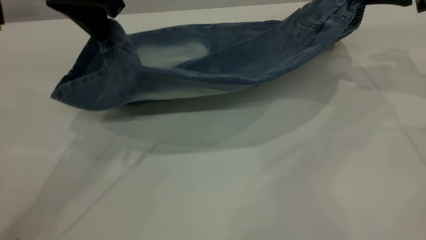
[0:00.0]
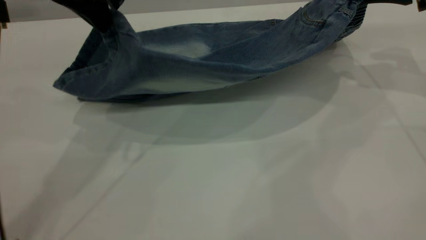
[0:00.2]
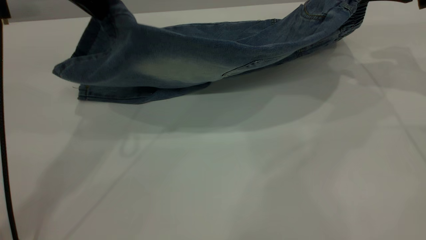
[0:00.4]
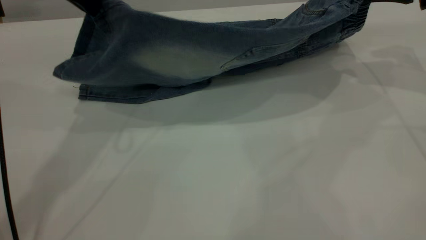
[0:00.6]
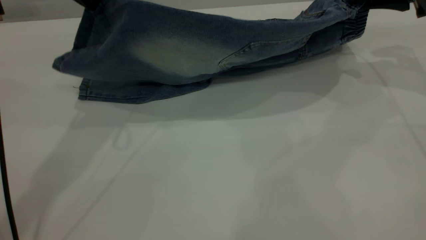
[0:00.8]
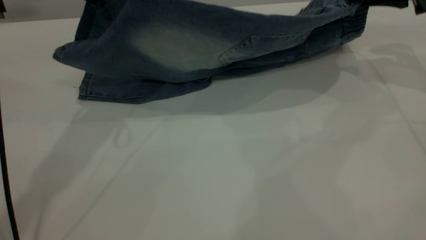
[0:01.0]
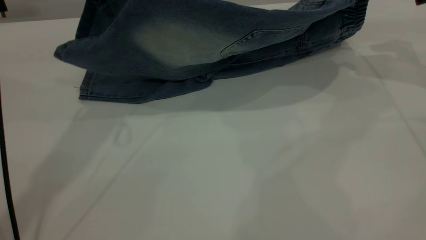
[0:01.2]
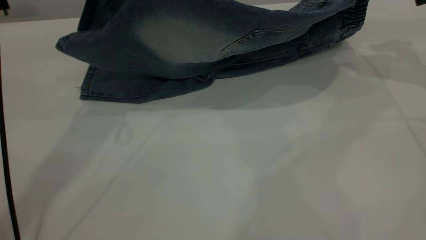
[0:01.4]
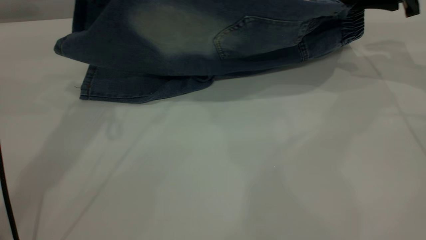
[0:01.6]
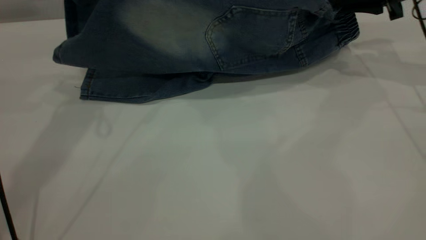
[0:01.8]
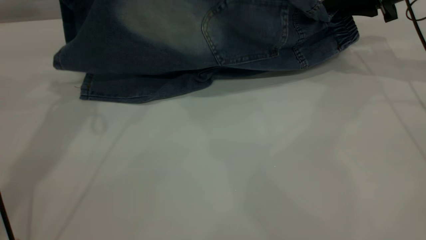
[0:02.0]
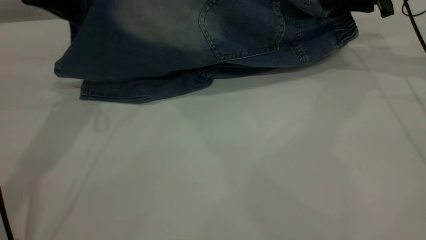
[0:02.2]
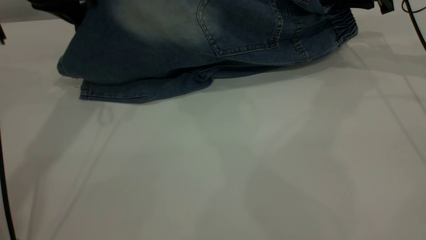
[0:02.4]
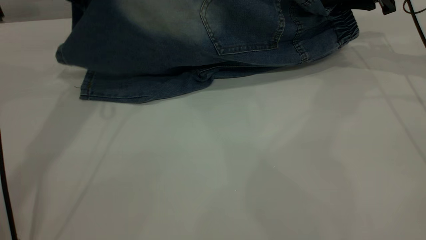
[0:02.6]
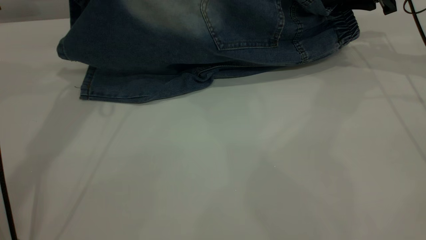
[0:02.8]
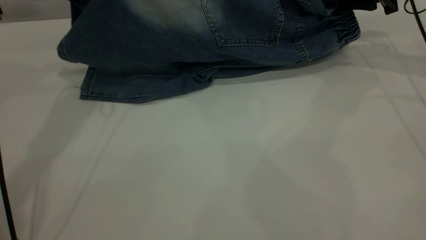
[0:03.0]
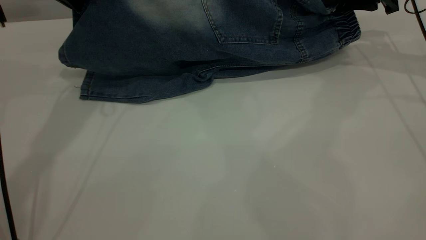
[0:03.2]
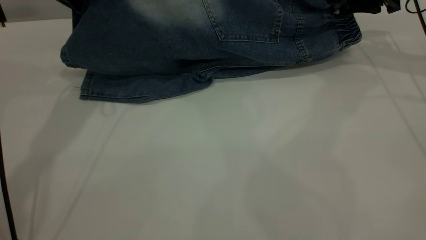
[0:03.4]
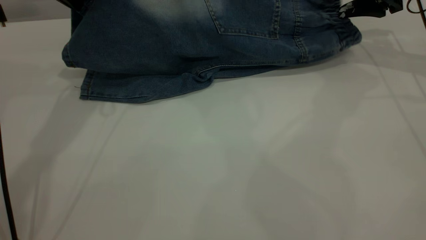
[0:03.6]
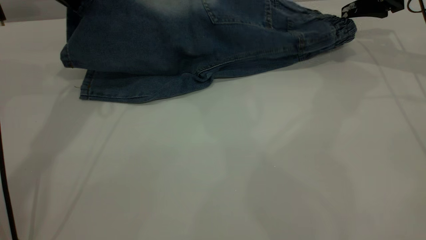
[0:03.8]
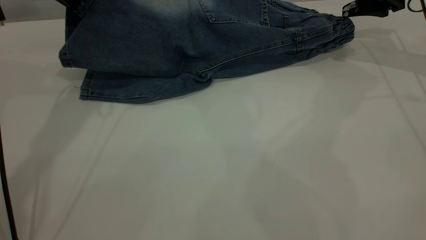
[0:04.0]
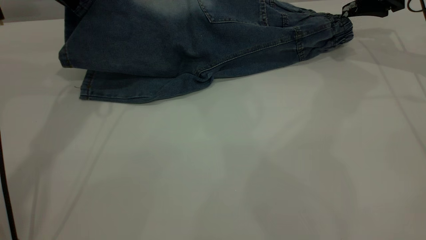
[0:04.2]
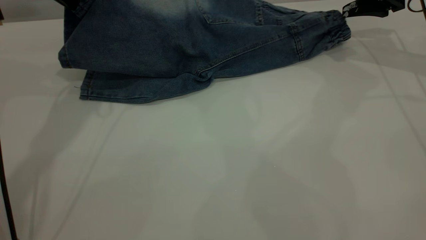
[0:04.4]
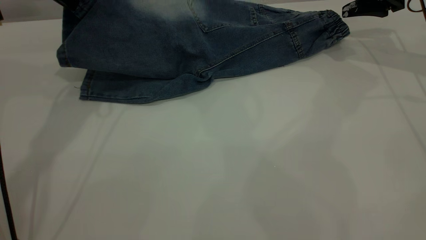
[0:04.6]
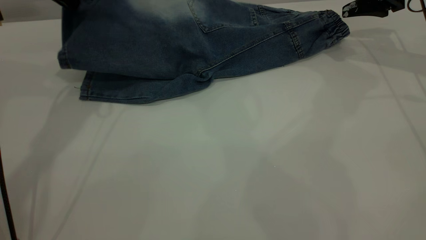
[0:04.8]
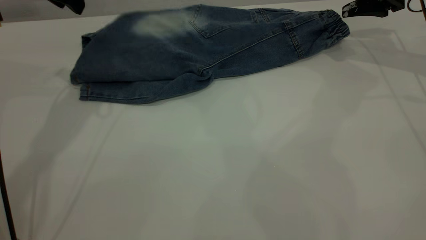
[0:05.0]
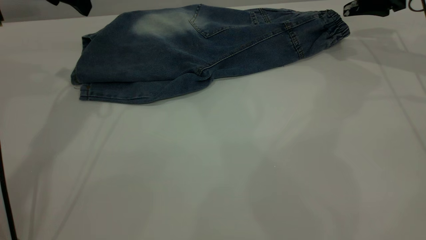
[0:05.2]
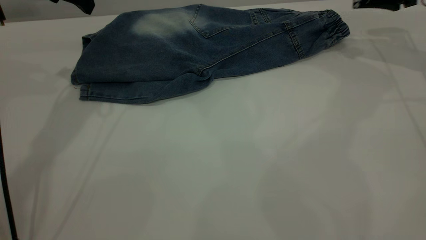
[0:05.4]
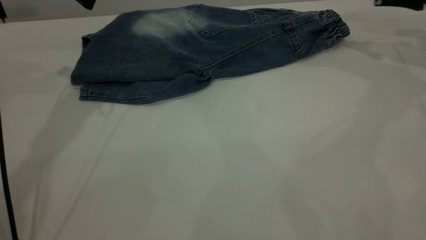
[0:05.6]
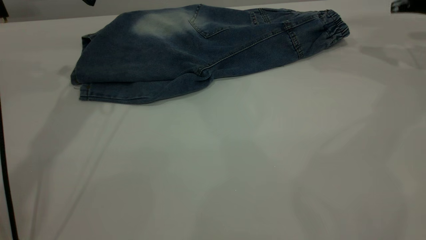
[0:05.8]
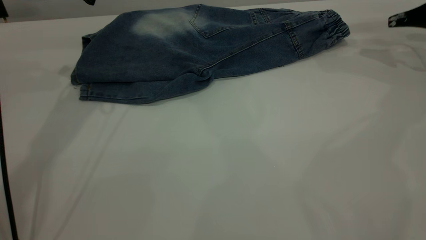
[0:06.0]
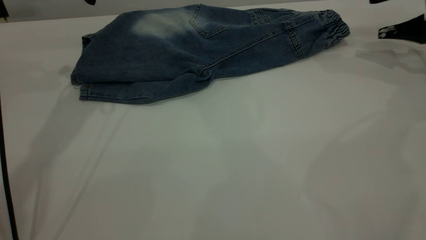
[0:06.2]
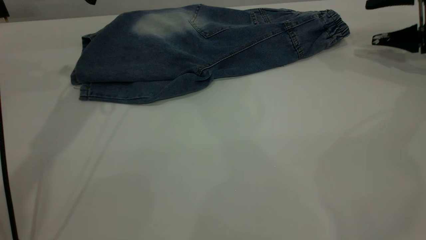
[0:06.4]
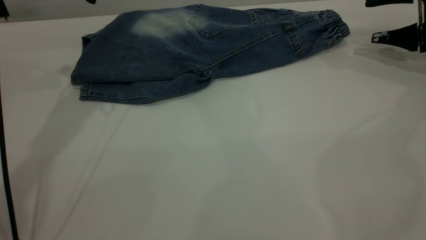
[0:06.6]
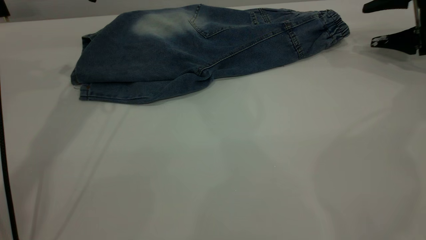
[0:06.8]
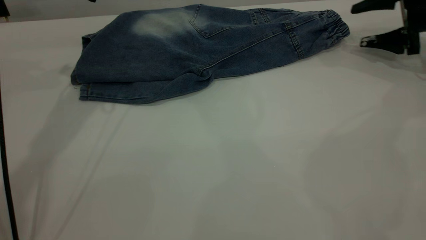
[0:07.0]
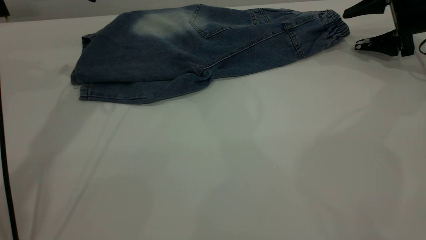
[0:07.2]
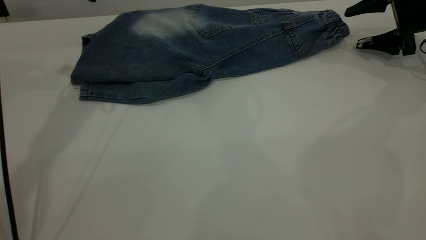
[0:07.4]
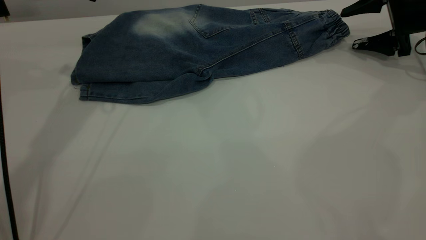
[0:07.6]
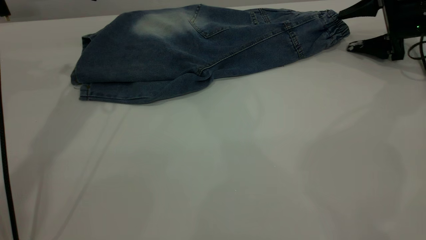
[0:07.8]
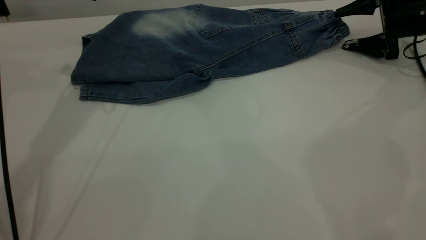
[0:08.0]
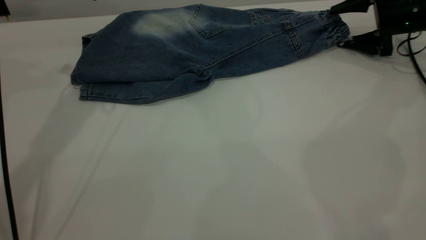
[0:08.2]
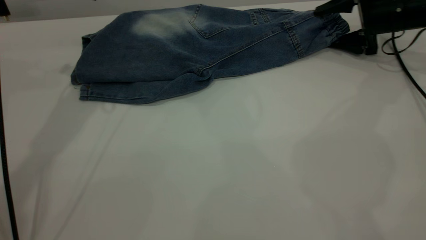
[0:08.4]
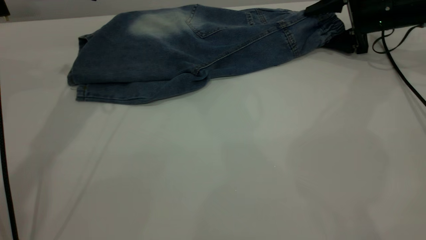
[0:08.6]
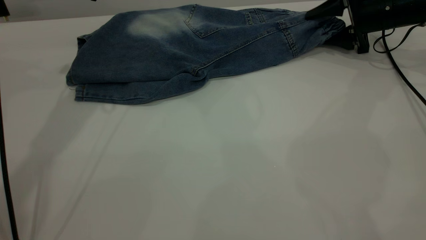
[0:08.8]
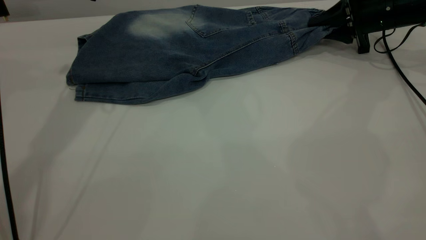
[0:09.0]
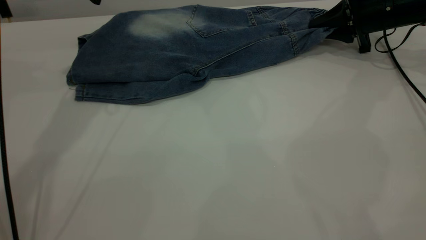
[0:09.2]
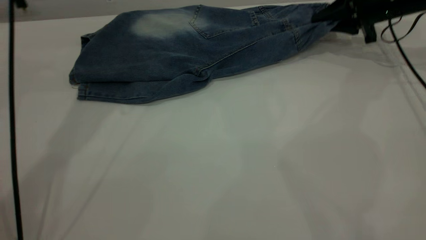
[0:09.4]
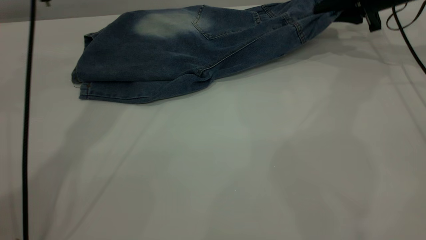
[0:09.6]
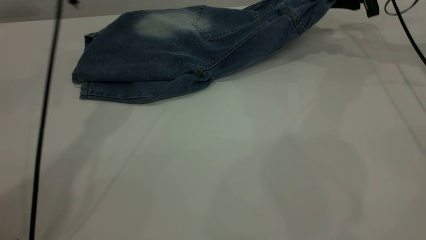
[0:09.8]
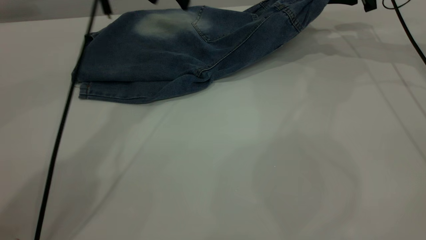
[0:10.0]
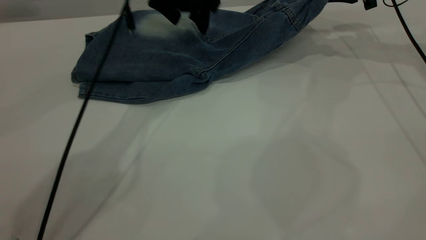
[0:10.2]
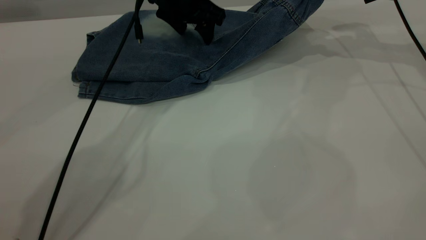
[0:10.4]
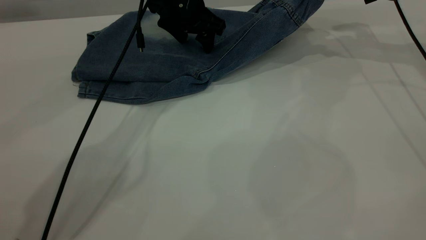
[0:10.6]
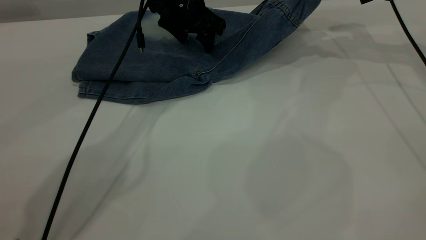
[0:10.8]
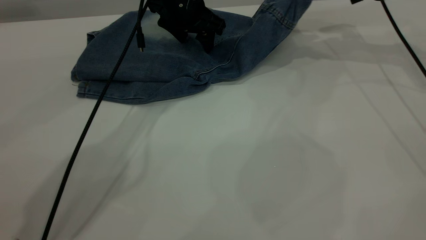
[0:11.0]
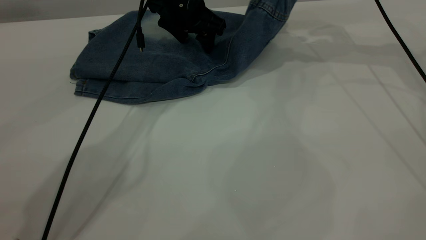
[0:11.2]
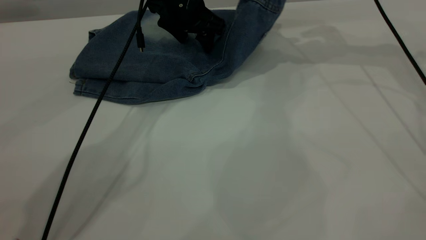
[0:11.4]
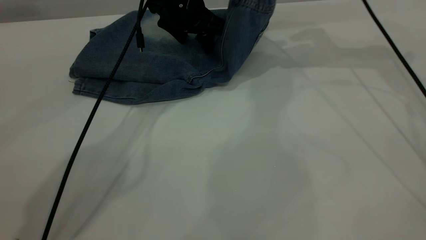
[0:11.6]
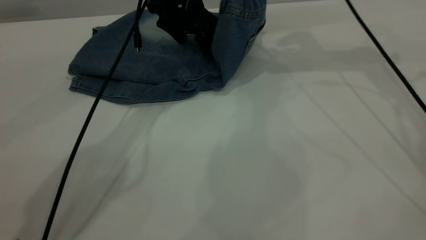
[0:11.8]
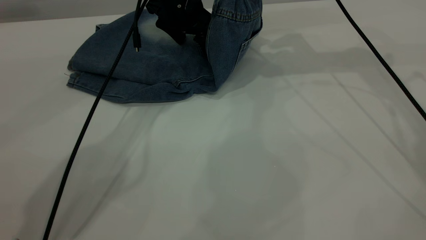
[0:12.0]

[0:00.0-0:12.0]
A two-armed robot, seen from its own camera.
Step, 0:00.0 to 0:05.4: Fold the bottom of the pants upward.
0:00.0 to 0:01.6: The left gripper moves roughly 5 cm.
0:01.6 to 0:03.0: The left gripper changes place by some 5 cm.
0:03.0 to 0:04.4: The right gripper opens up.
0:04.4 to 0:06.0: The right gripper shifts some 10 cm to the right. The left gripper opens its fingers.
0:06.0 to 0:07.6: The right gripper is displaced downward by some 5 cm.
0:07.6 to 0:09.0: The right gripper moves to the left, about 5 cm, and closes.
0:09.0 to 0:10.4: The left gripper travels to the right and downward by approximately 20 cm; the right gripper heads upward, covering some 10 cm.
0:10.4 to 0:12.0: The right gripper travels to the left by about 10 cm.

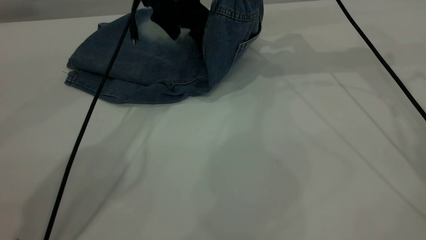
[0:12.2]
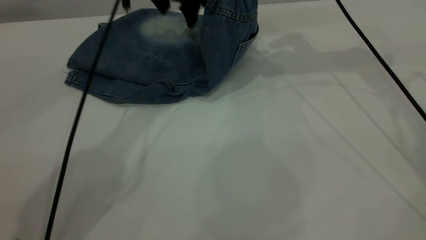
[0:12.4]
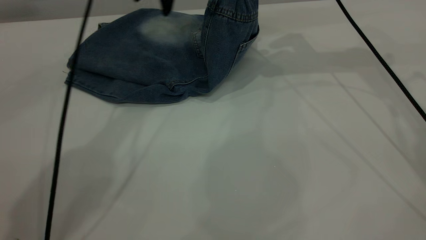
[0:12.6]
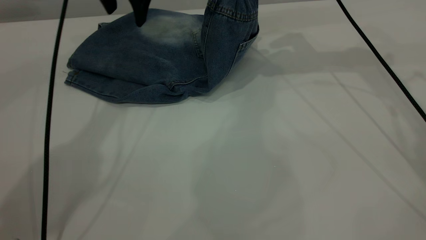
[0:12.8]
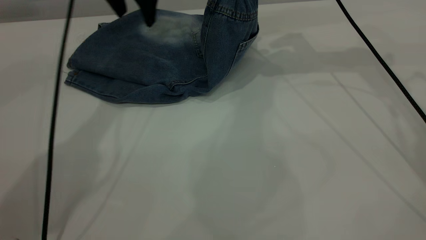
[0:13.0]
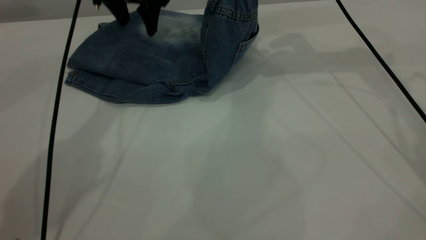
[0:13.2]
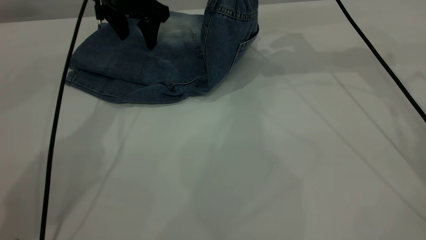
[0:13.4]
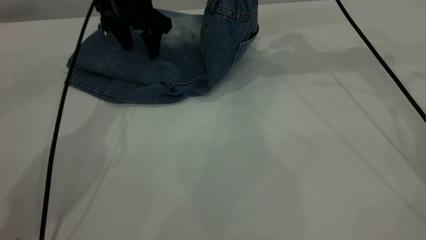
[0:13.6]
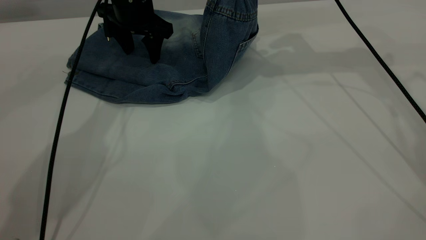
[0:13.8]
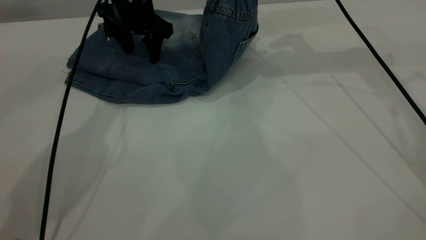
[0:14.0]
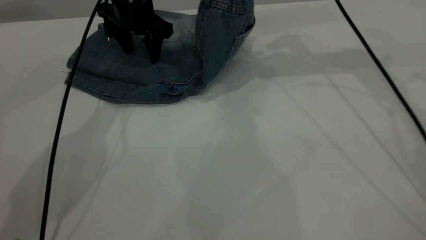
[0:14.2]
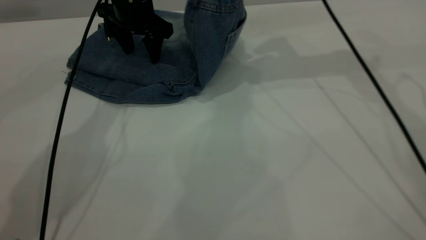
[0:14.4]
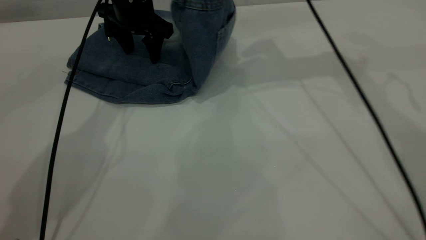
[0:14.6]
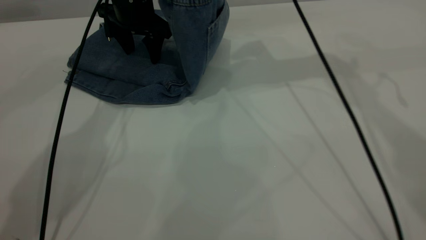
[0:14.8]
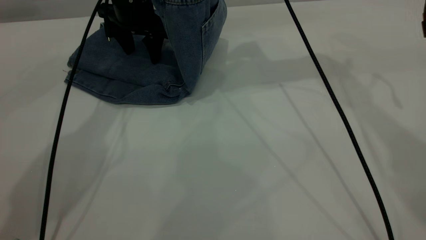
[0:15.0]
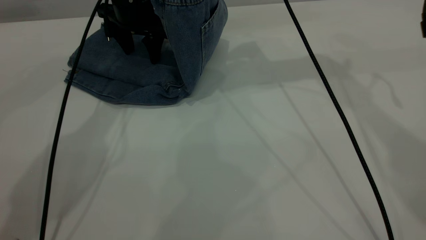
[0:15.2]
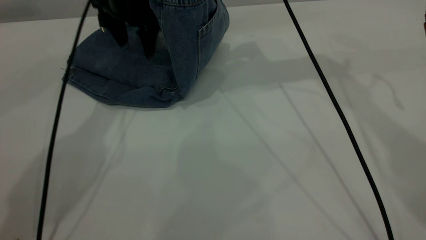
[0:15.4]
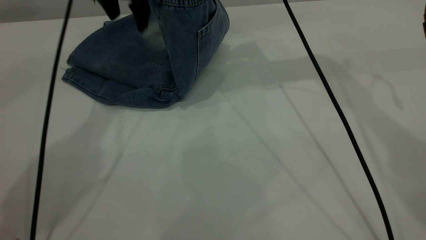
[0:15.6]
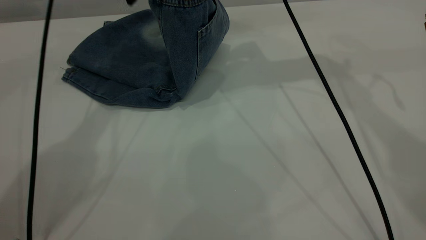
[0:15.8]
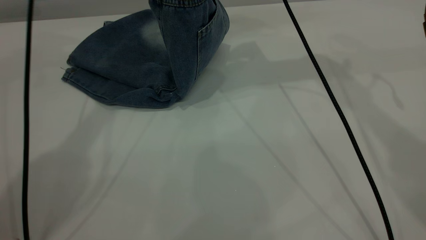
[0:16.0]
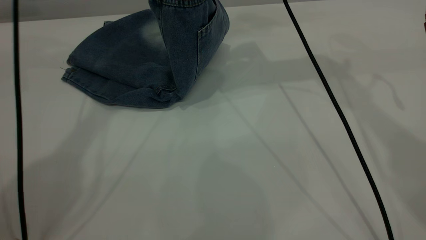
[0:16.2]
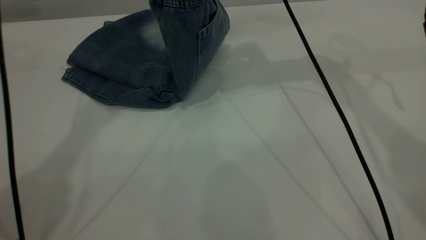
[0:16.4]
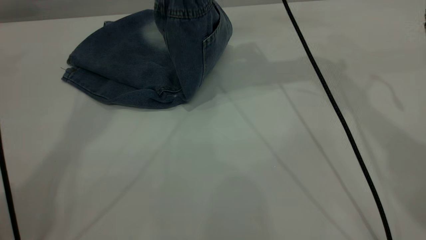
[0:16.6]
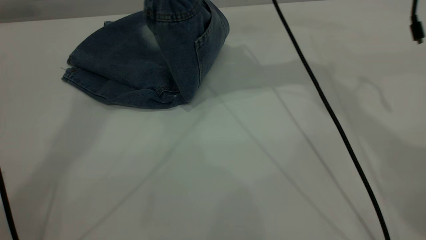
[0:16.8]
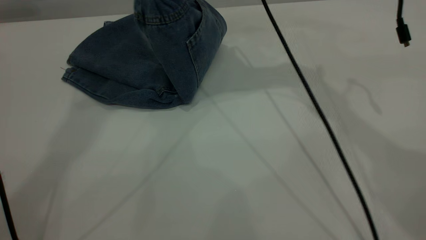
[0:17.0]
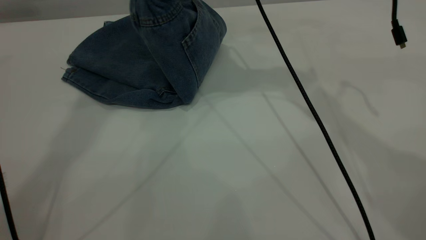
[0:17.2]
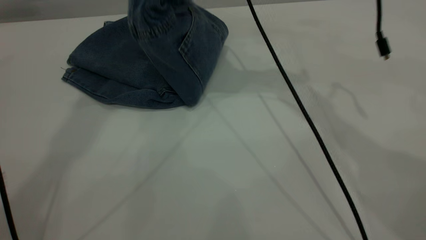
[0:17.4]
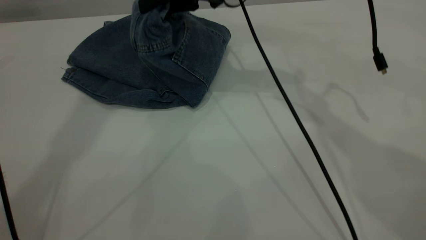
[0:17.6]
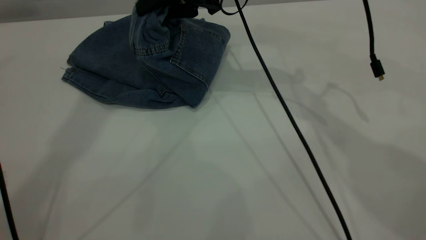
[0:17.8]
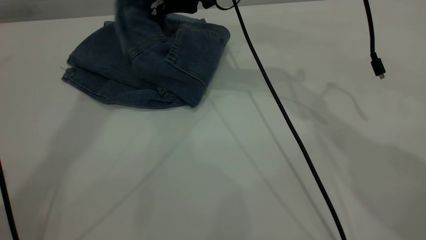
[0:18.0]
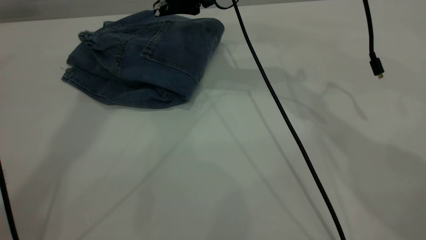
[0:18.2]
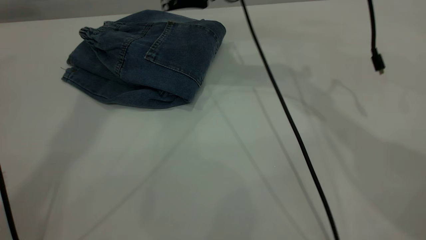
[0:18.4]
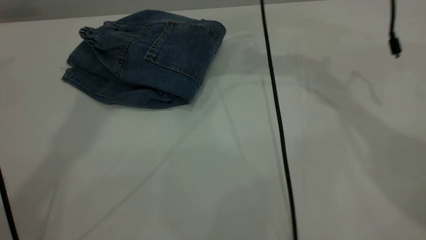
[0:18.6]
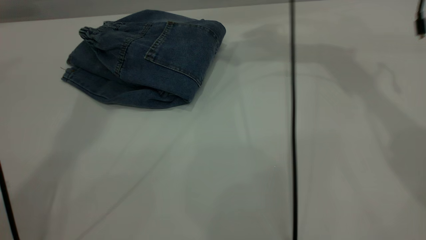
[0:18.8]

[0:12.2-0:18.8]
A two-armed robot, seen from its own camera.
Step, 0:12.2 to 0:18.4: Fold your pants from right to left.
0:12.2 to 0:13.8: The left gripper travels to the left by approximately 10 cm, and goes upward and returns, about 5 cm each way.
0:13.8 to 0:15.4: The right gripper goes roughly 10 cm to the left.
0:15.4 to 0:17.2: The right gripper heads to the left, covering roughly 5 cm, while the left gripper goes about 30 cm upward.
0:17.2 to 0:18.8: The right gripper shifts some 15 cm to the right and forward, and opens.
